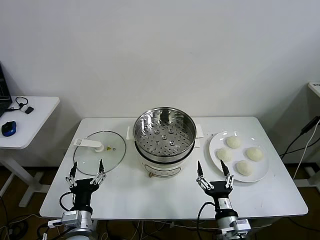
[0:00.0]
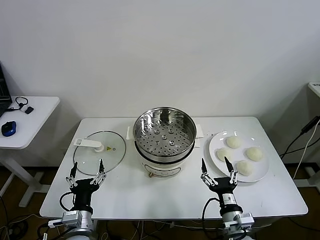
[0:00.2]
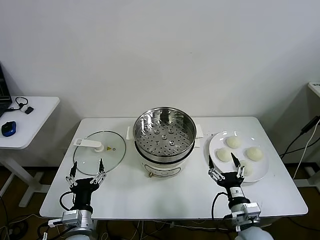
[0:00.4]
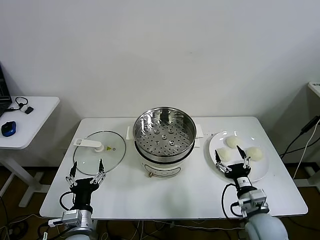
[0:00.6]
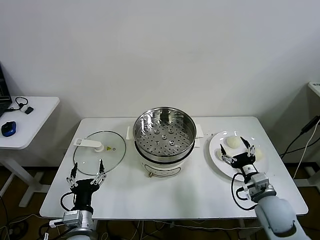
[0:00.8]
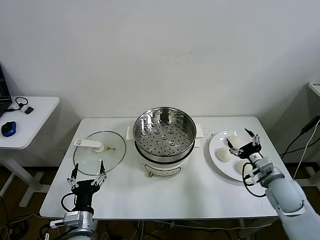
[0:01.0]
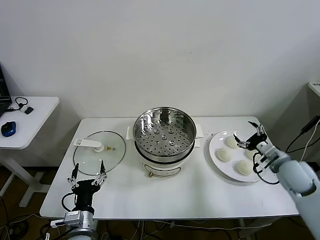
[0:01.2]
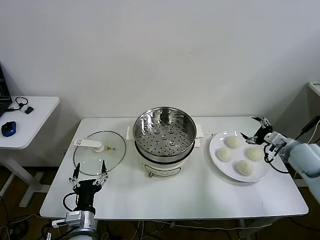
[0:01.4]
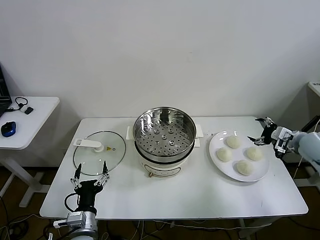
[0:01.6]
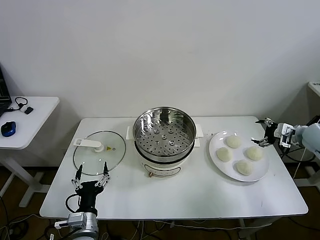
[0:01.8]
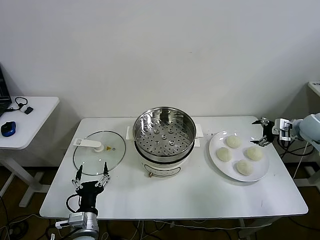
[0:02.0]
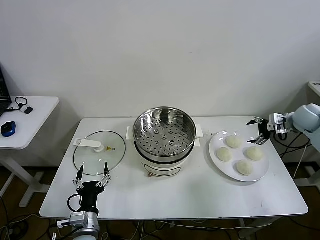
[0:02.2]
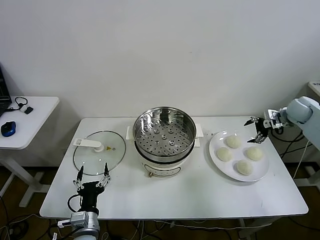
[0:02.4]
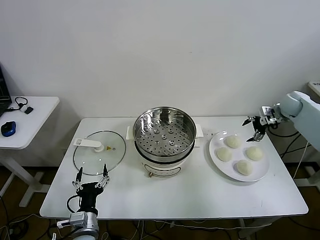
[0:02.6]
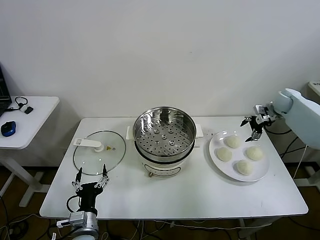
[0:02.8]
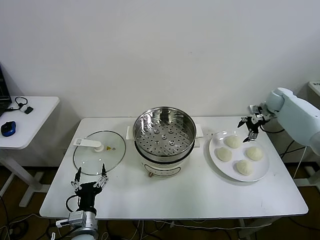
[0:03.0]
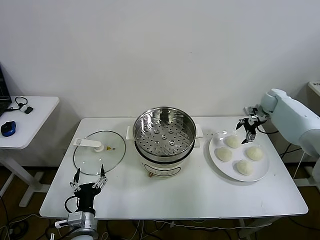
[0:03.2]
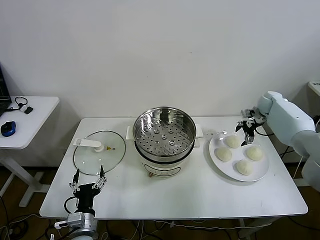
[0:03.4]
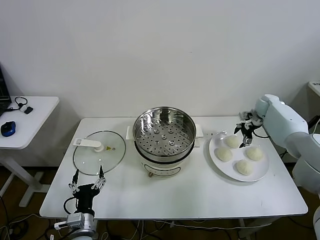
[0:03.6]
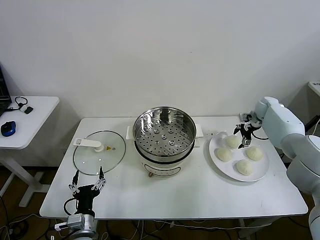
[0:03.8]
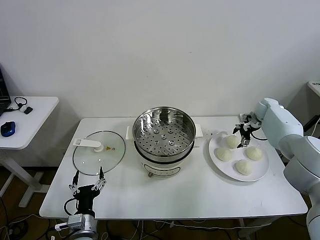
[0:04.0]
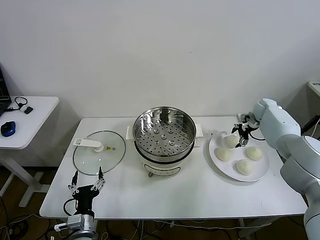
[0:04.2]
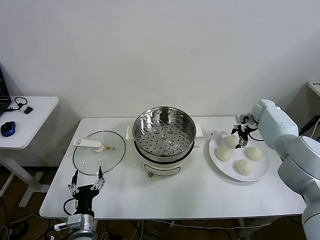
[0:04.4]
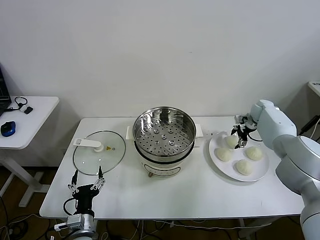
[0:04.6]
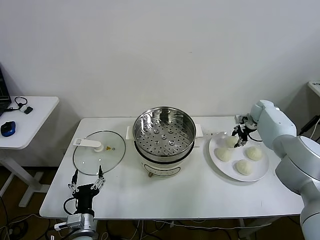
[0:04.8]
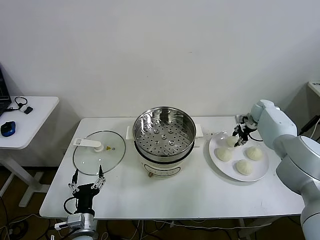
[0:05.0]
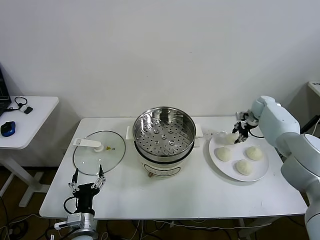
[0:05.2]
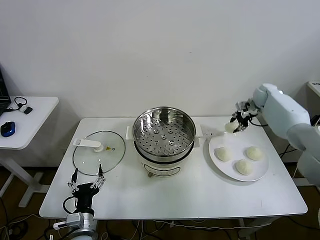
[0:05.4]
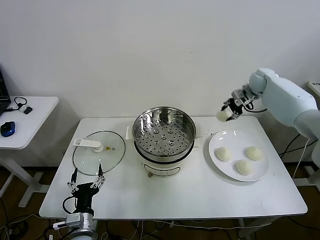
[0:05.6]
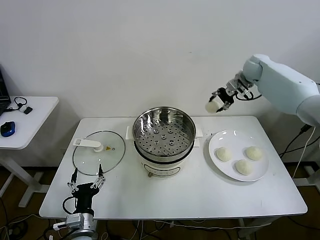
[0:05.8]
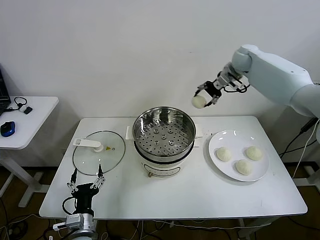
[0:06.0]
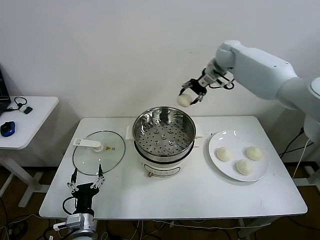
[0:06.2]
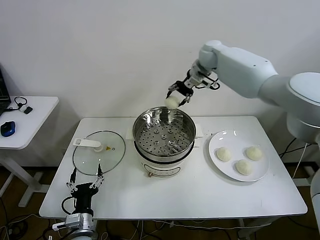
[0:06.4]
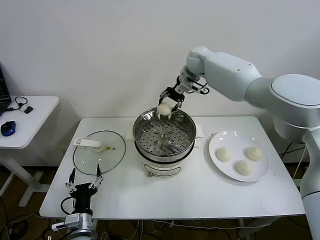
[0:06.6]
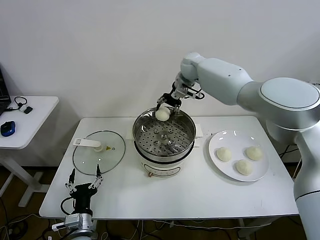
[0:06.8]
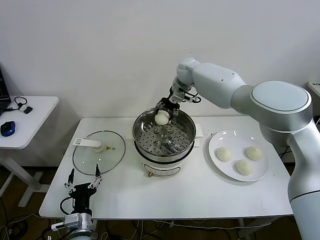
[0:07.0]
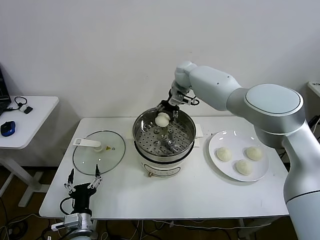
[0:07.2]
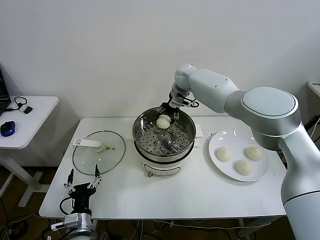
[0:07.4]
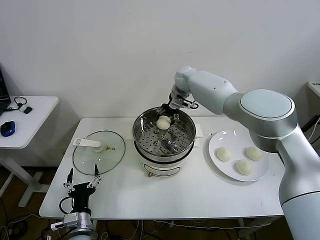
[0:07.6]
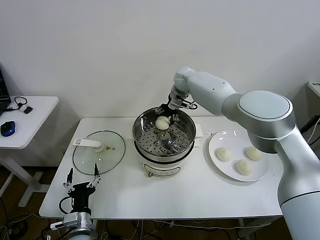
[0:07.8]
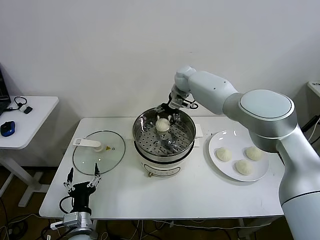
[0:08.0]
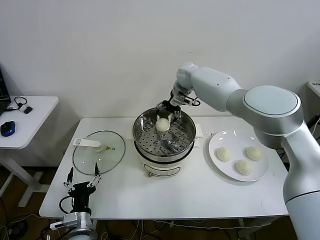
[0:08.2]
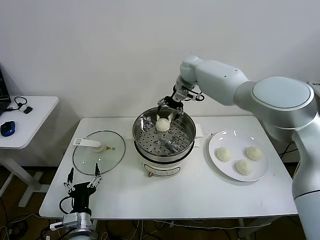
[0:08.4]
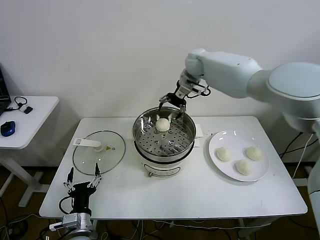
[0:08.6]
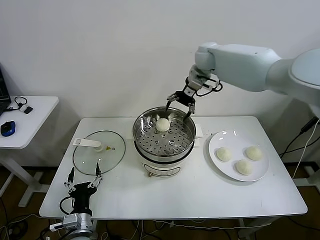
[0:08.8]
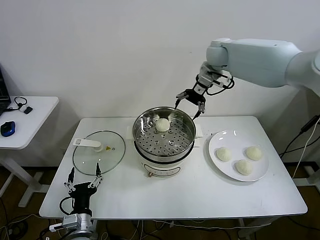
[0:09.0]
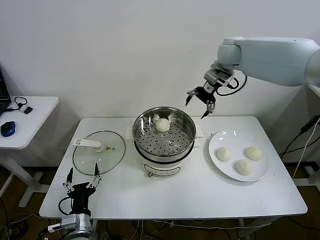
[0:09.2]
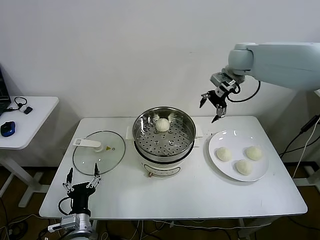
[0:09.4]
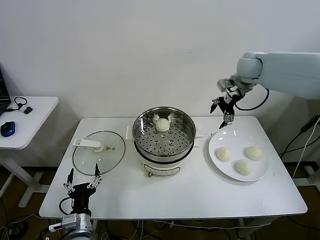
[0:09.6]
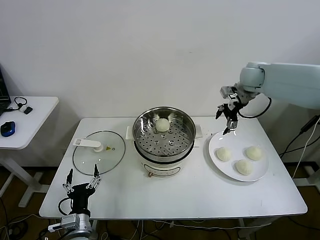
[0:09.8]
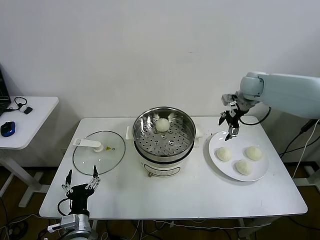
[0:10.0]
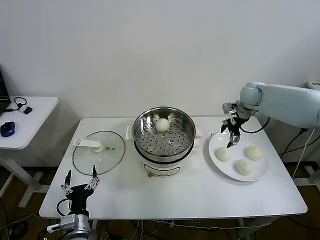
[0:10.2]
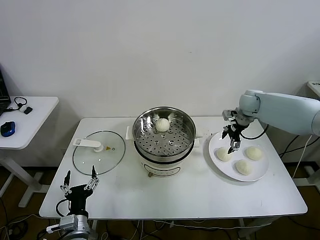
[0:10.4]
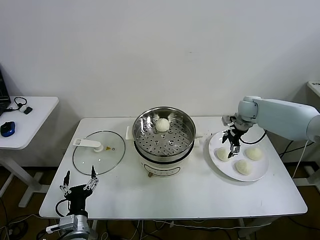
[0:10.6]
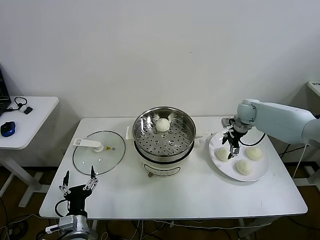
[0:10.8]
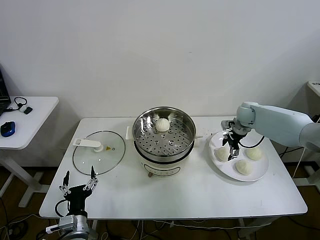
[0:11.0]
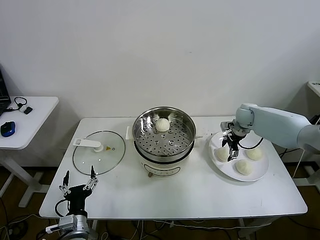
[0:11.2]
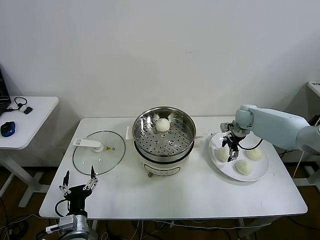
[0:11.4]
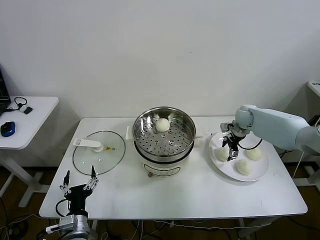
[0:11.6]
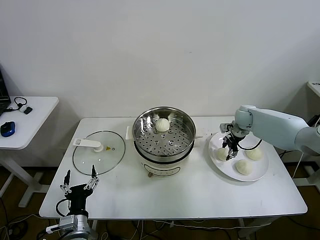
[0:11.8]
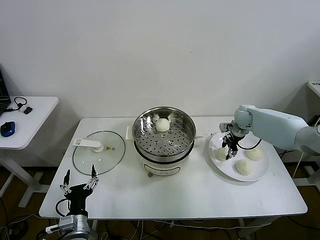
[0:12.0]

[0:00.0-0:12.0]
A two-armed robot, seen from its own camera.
Step, 0:00.0 to 0:05.0: Grasp the baozi in the plate with right gripper.
Step, 0:05.2 to 0:08.2: Place the baozi on the steamer with right gripper.
0:01.6 to 0:03.0: The right gripper moves forward, roughly 20 cm.
0:03.0 to 0:04.4: The right gripper is displaced downward by about 5 cm.
0:04.4 to 0:06.0: The right gripper travels upward and to the left by some 30 cm, and closes.
0:06.0 to 0:07.6: The right gripper goes roughly 20 cm to the left and downward.
0:07.6 to 0:09.0: The right gripper travels upward and to the right by roughly 15 cm, and opens its fingers.
0:09.0 to 0:10.4: The right gripper goes about 25 cm downward and to the right.
0:10.4 to 0:12.0: The right gripper moves downward, roughly 5 cm, and closes its fingers.

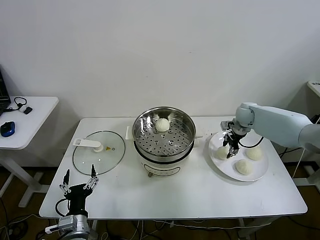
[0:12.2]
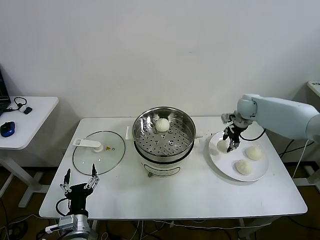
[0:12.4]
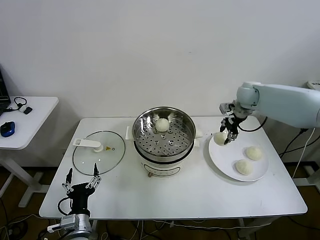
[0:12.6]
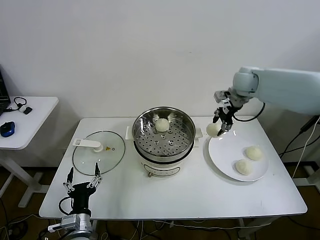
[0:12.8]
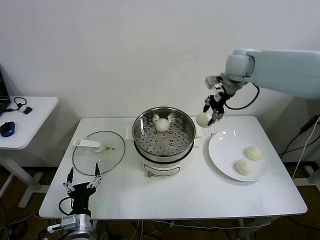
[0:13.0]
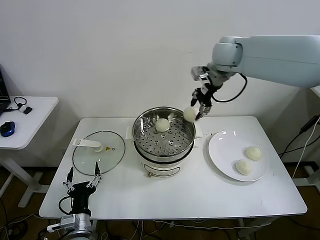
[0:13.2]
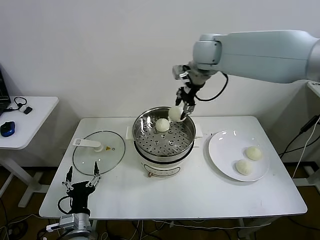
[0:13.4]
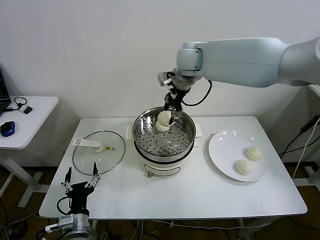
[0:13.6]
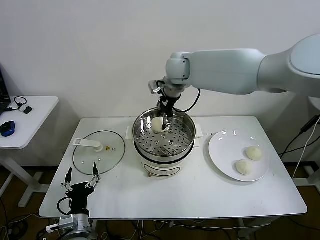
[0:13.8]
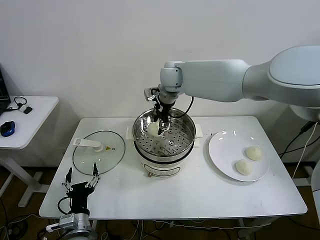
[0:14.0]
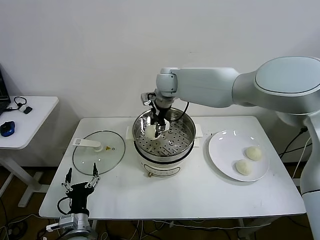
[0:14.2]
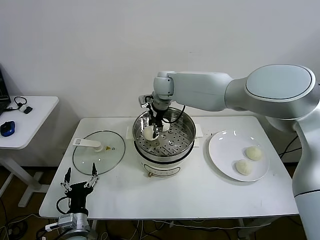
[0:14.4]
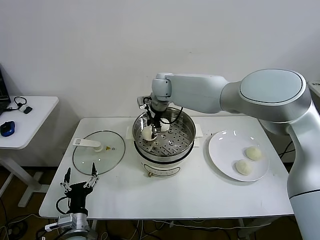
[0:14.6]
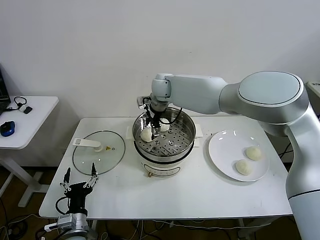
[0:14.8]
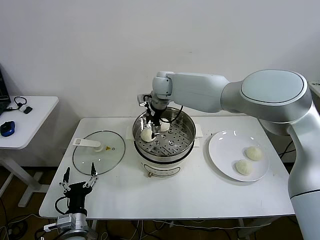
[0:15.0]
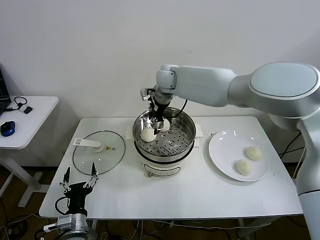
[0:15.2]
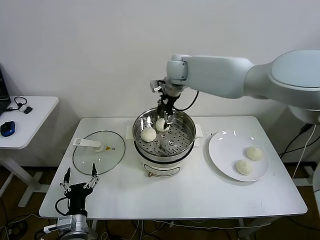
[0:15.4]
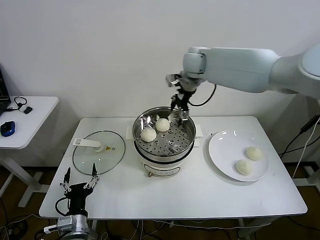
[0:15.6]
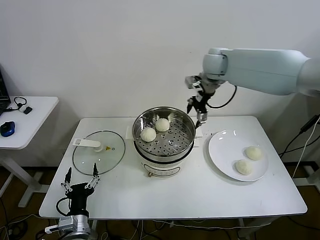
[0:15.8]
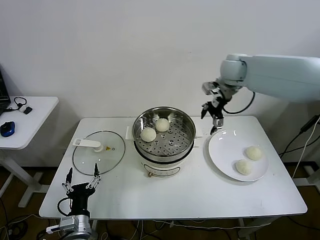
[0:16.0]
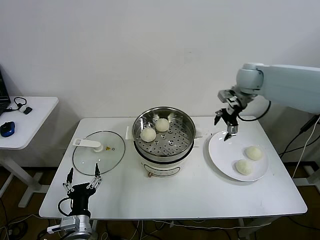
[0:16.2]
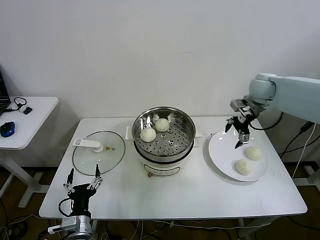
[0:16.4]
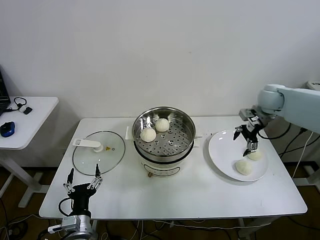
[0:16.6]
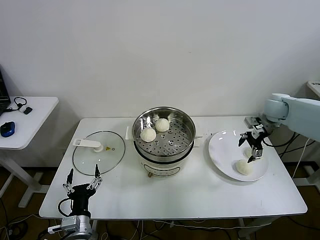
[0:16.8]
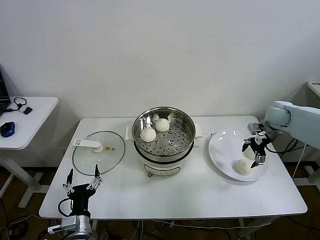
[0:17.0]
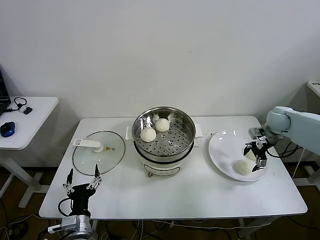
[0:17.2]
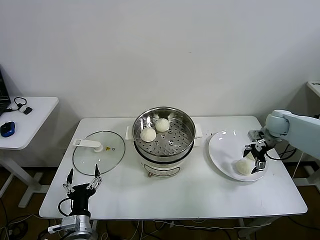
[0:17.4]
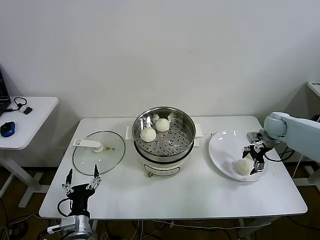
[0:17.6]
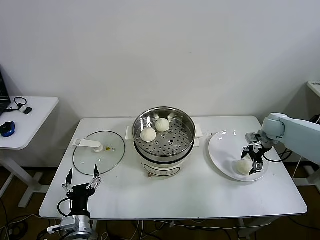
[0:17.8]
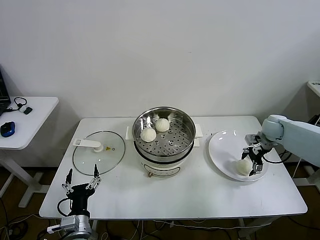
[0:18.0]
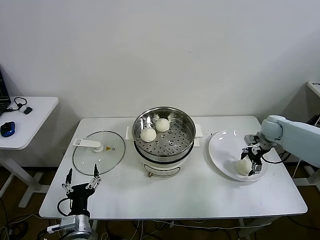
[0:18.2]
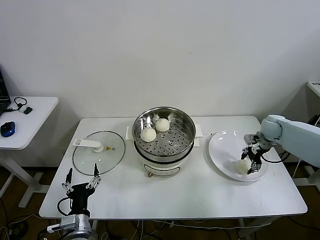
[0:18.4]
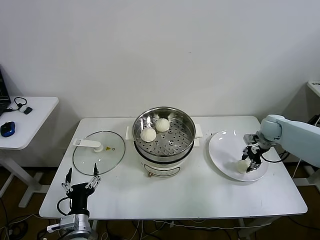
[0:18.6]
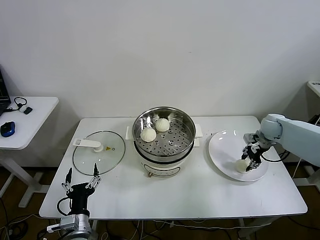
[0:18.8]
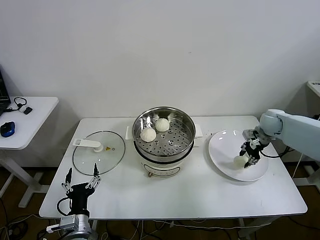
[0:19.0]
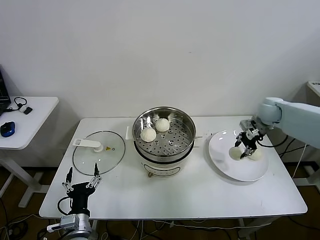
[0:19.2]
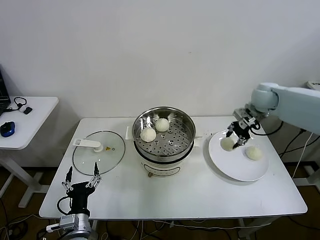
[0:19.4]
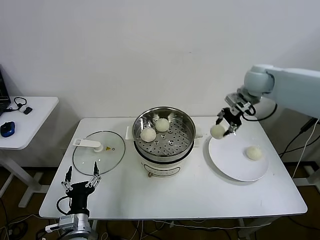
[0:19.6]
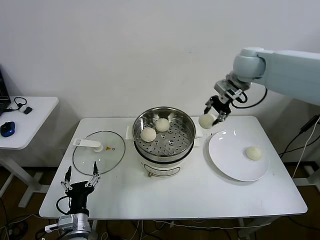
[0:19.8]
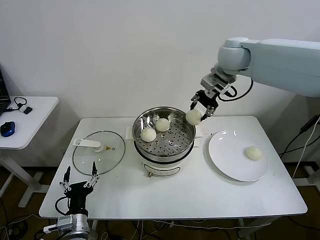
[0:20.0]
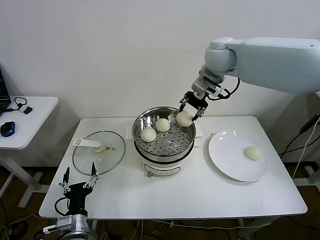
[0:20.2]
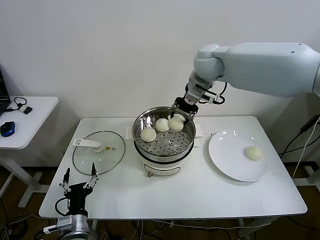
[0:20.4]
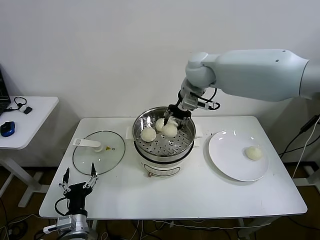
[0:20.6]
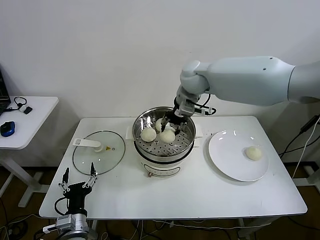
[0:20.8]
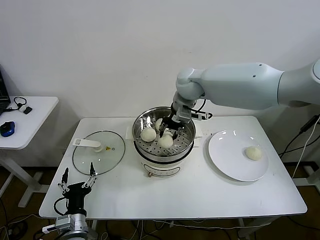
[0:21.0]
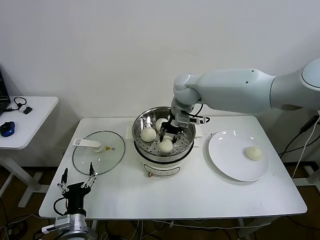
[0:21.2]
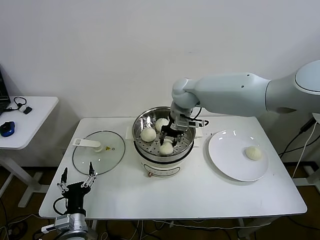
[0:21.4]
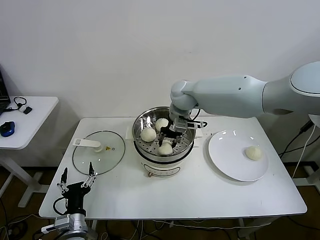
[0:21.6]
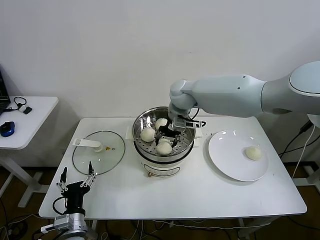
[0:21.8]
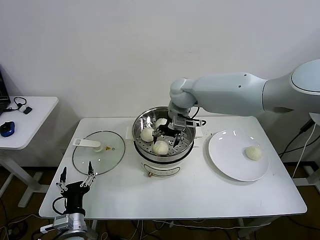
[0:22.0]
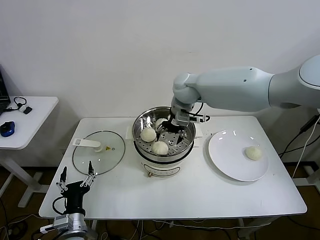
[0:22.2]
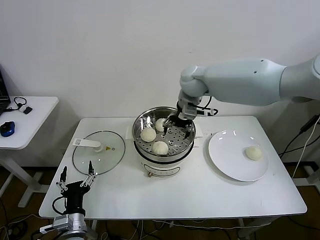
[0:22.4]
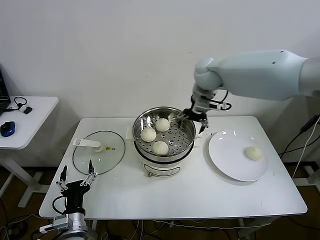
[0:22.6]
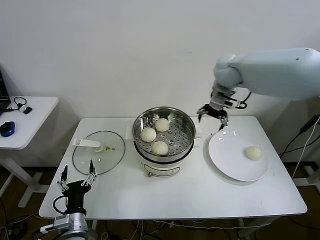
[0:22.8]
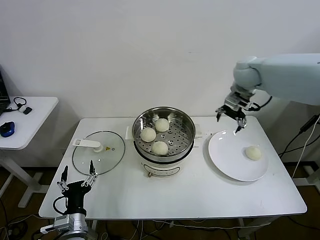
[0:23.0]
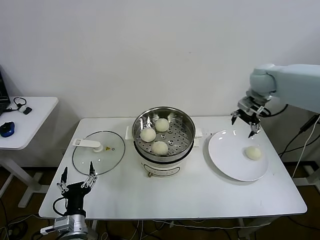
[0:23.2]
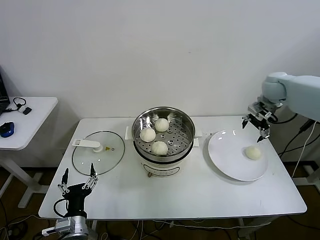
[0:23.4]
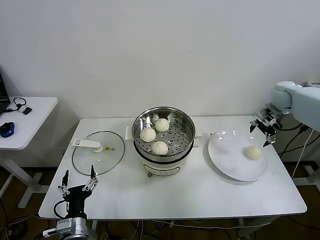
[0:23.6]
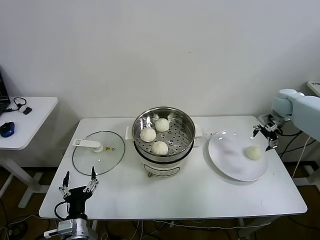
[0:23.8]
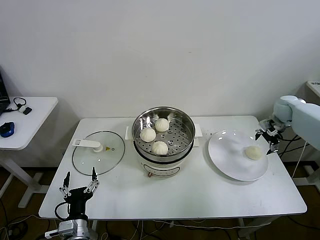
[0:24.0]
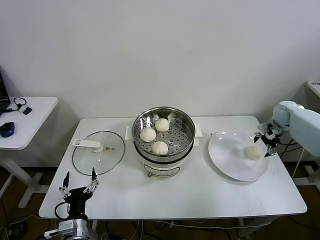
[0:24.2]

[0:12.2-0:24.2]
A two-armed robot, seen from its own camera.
Step, 0:12.2 to 0:15.0: Place the baozi on the steamer with right gripper.
Step, 0:15.2 to 0:18.6: Grasp the baozi in the plate with right gripper.
Step, 0:18.8 to 0:22.0: Place the baozi on the steamer with right gripper.
0:12.2 to 0:13.8: The right gripper travels to the left and upward by about 35 cm.
0:13.8 to 0:15.2: The right gripper opens its fingers.
0:15.2 to 0:16.6: The right gripper shifts approximately 35 cm to the right.
0:16.6 to 0:18.2: The right gripper goes about 10 cm downward.
0:18.2 to 0:19.8: The right gripper goes roughly 35 cm upward and to the left, and closes.
0:19.8 to 0:21.2: The right gripper shifts about 20 cm to the left and downward.
0:21.2 to 0:22.6: The right gripper moves to the right and upward, about 10 cm, and opens.
0:22.6 to 0:24.2: The right gripper is displaced to the right and downward by roughly 40 cm.
